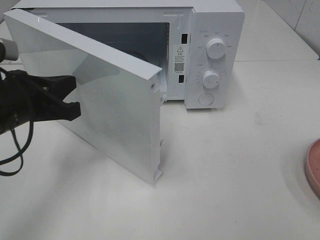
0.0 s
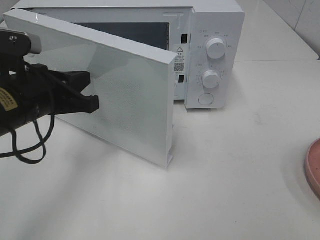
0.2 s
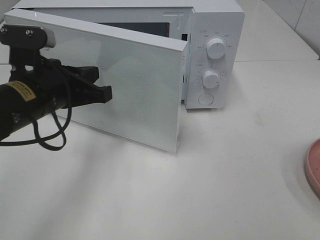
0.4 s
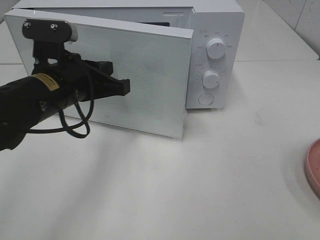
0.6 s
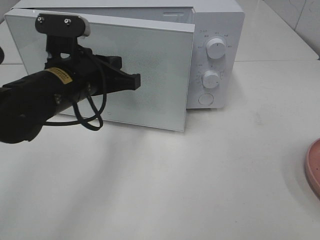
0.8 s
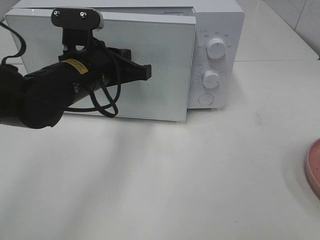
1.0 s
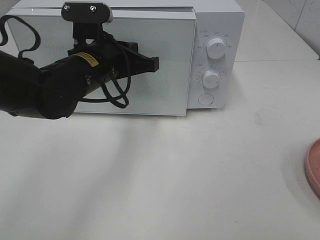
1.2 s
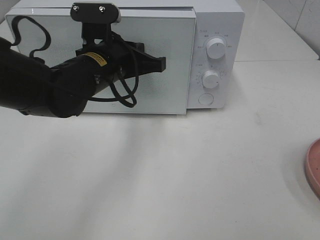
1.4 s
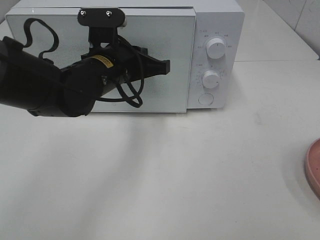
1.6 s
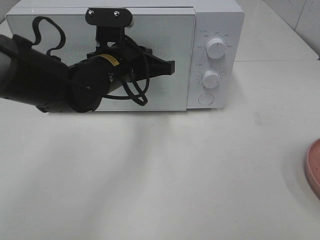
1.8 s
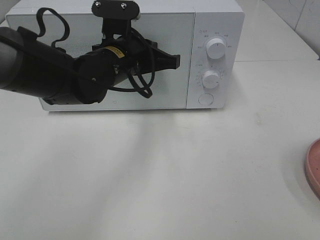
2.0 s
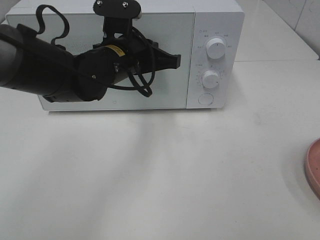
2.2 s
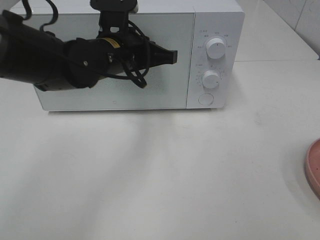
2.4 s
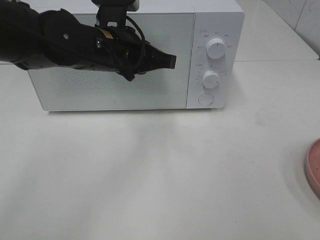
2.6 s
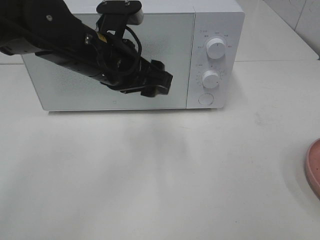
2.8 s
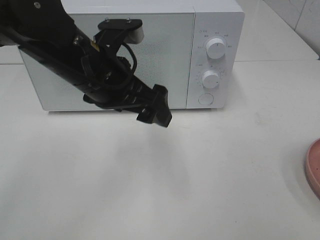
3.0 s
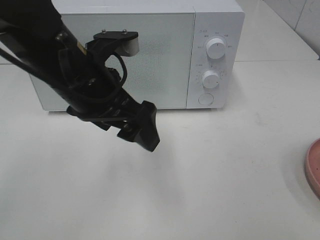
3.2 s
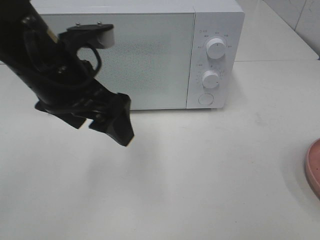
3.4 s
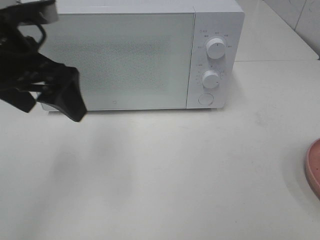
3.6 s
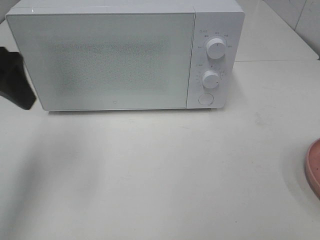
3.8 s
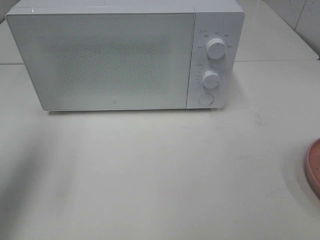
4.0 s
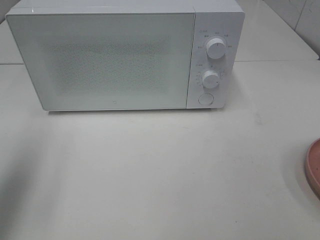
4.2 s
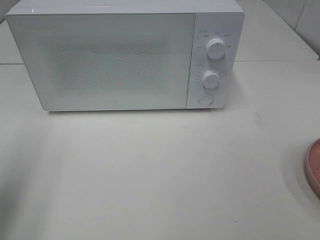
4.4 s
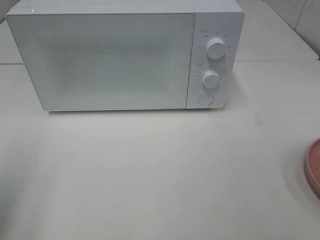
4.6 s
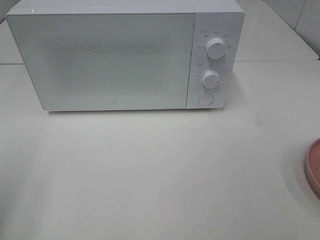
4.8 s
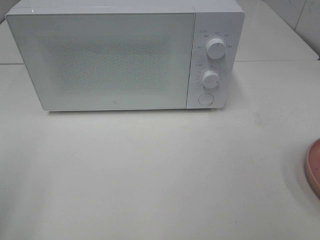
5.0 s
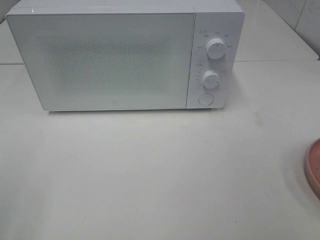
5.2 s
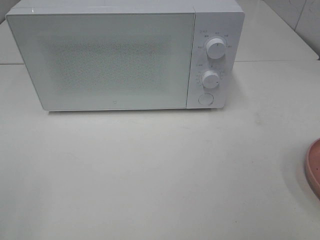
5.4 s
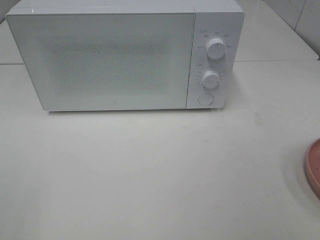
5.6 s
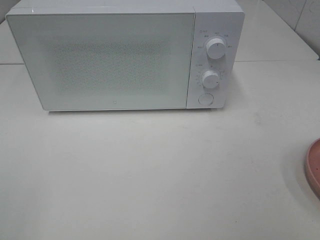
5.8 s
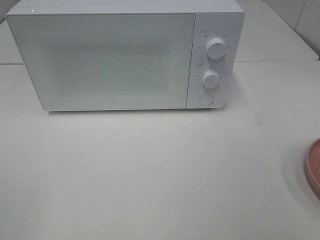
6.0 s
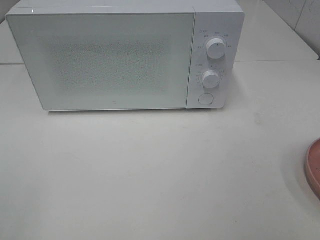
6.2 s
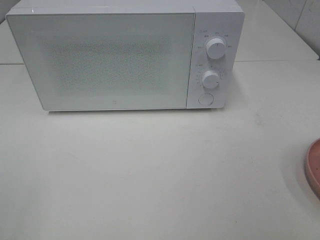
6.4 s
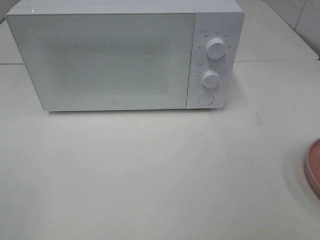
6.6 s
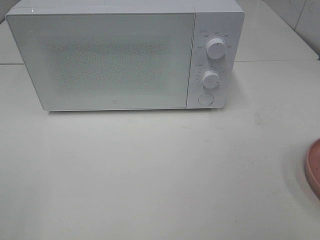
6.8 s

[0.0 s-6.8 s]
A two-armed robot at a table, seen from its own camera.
Task of the whole recording: Heat the burger.
Step, 0.0 to 2.4 s: Left hand: close the microwave door.
0.0 to 1.4 s: The left gripper travels to the right and forward by some 15 cm.
1.4 to 2.8 s: The left gripper changes place by some 5 cm, and opens up.
2.8 to 4.0 s: The left gripper shifts some 20 cm to the left.
4.0 to 5.4 s: The left gripper is displaced backward by about 20 cm.
5.4 to 6.8 s: Both grippers stay put.

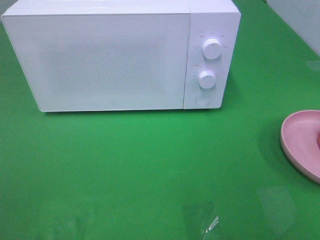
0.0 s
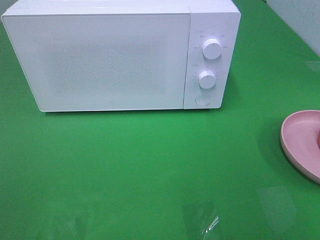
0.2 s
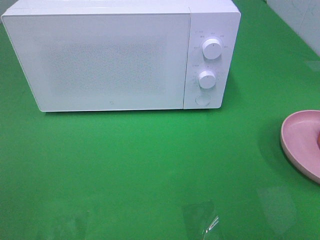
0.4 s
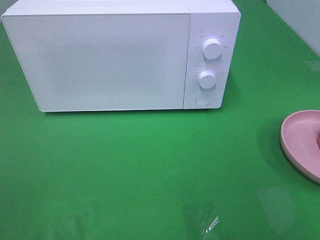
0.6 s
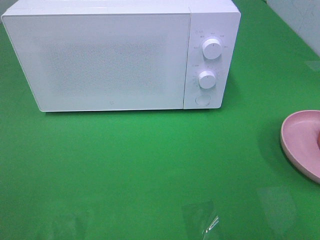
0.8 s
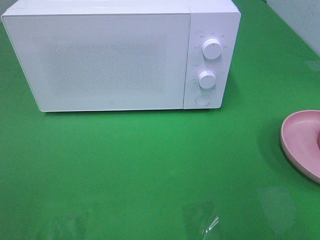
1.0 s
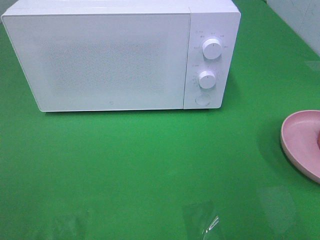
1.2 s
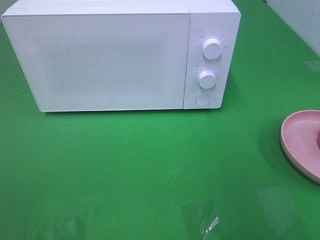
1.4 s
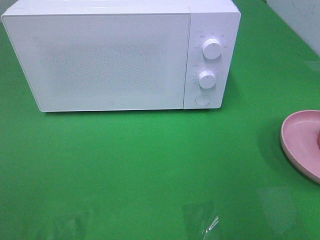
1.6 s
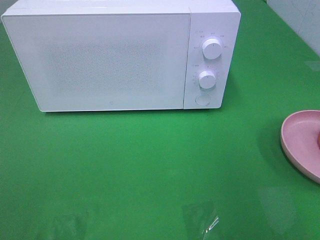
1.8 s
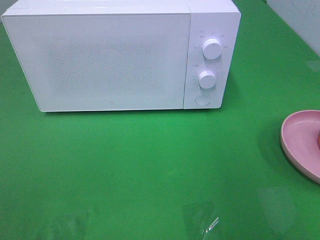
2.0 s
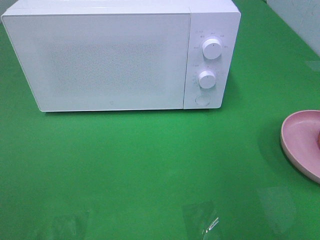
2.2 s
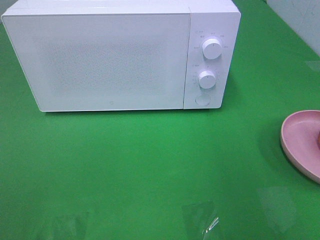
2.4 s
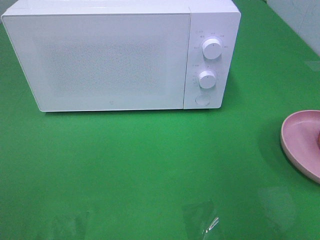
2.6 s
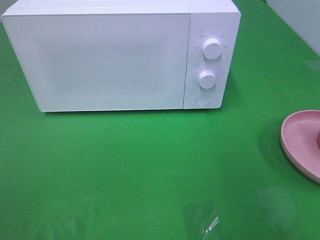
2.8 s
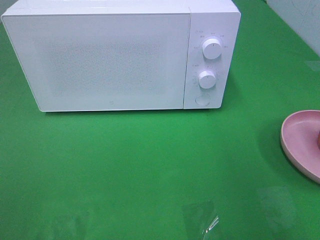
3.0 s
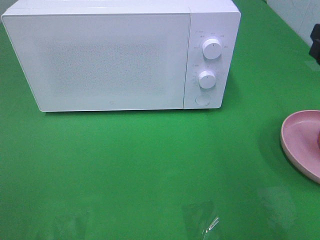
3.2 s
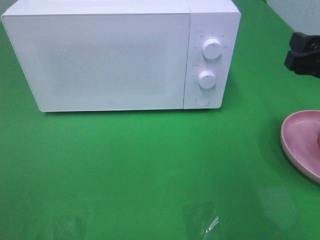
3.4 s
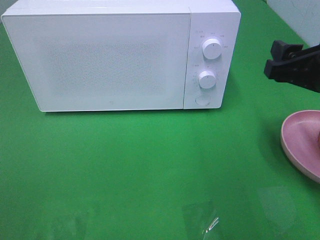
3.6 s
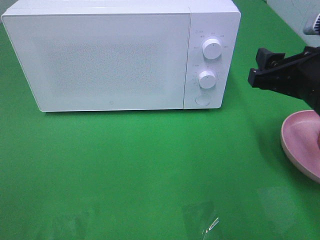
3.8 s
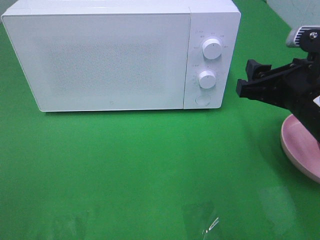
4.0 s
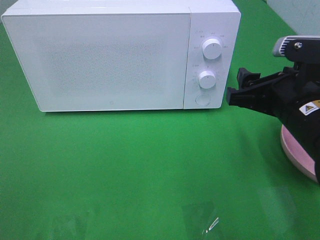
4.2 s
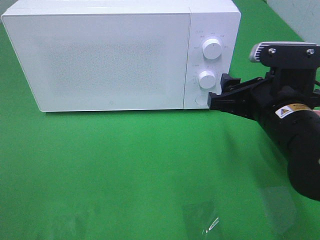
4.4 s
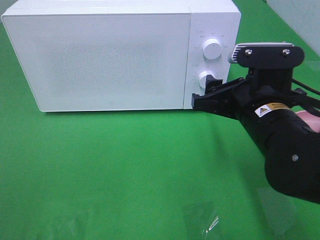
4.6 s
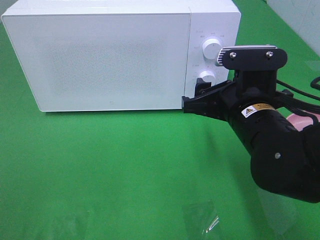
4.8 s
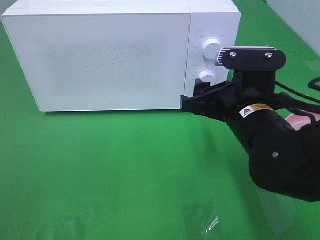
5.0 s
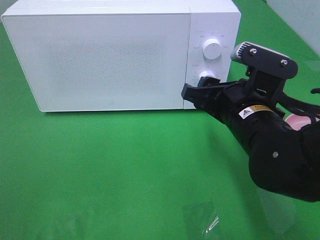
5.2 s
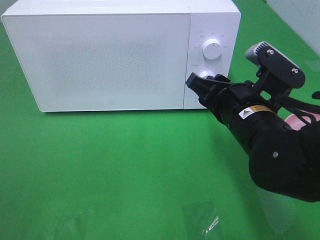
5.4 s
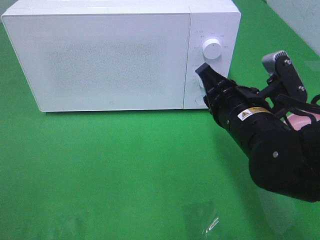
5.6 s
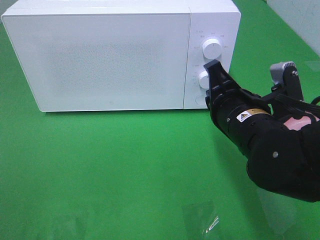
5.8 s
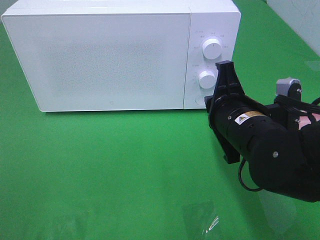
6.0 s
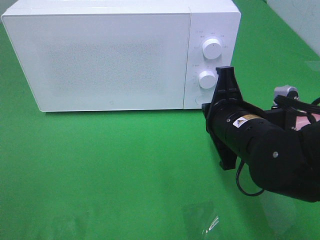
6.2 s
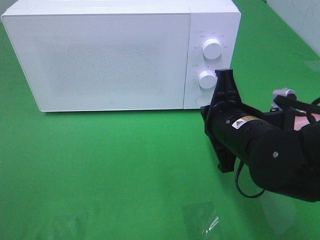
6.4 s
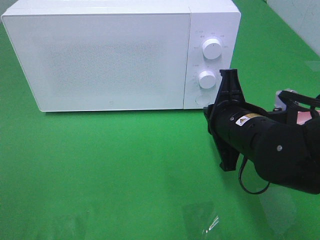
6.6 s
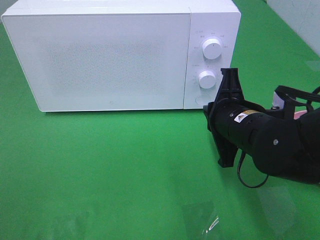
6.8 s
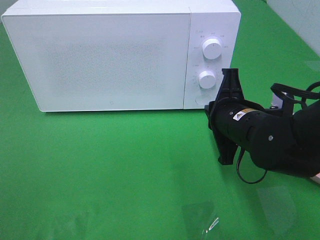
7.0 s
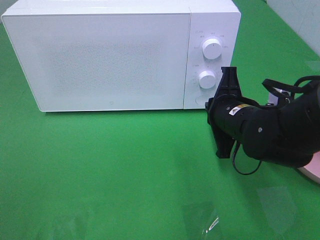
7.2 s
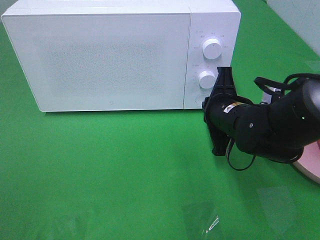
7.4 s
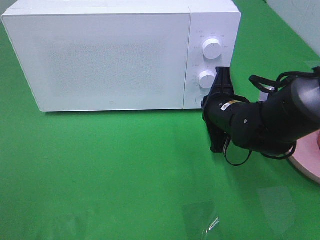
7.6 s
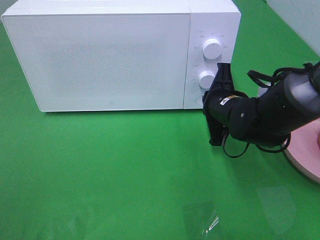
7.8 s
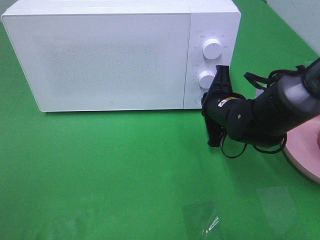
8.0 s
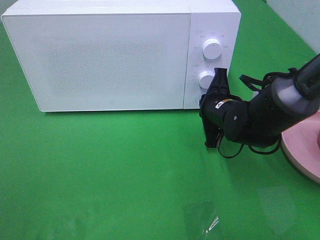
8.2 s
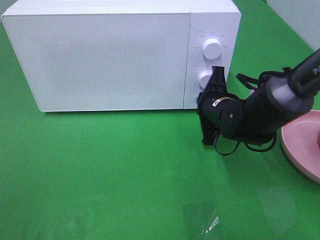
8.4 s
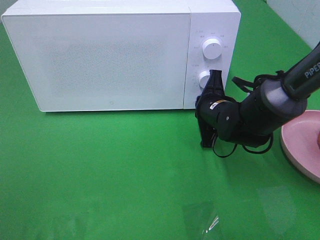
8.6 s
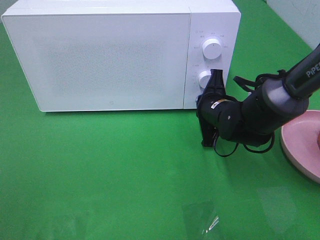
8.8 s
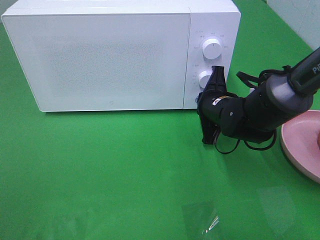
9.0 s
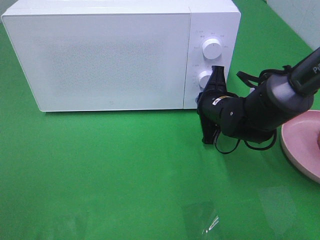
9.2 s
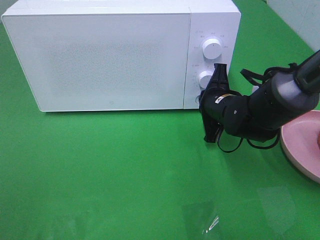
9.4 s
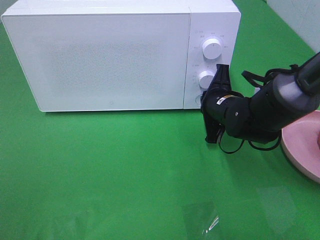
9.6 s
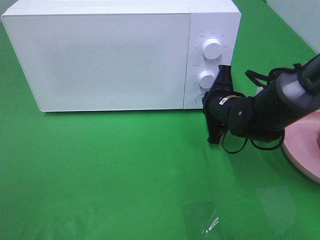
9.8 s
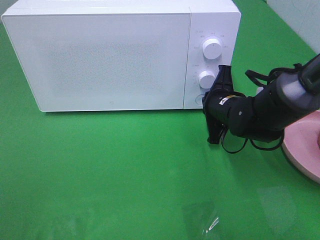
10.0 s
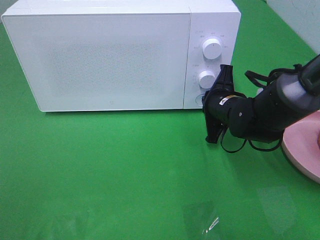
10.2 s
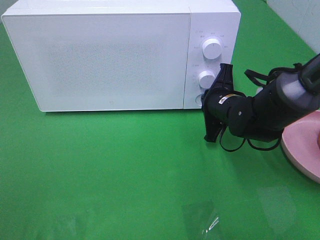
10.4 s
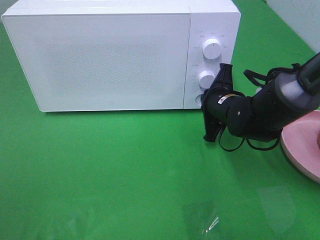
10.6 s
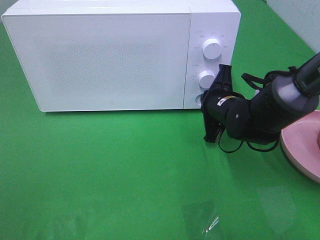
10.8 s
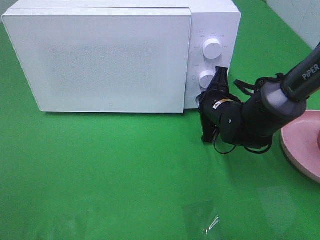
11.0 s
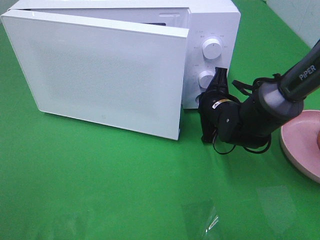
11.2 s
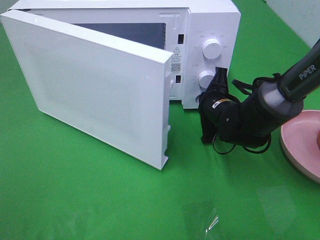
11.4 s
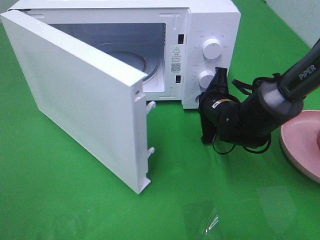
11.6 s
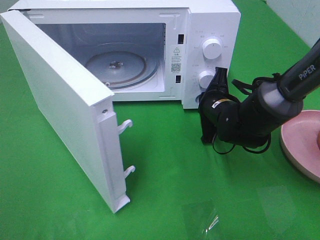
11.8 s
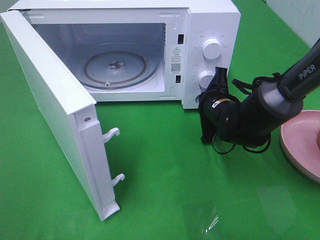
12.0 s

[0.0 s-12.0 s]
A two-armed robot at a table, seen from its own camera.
Task of the whole recording: Heat the burger.
3.0 to 4.4 s: The right gripper is displaced to the left and downward by about 15 cm.
4.4 to 6.0 s: The right gripper closes its fingers.
6.0 to 7.6 s: The right gripper moves forward, some 10 cm.
7.6 to 9.0 s: The grippers stay close to where they were, moving slightly.
9.0 to 10.4 s: Both grippers stay put.

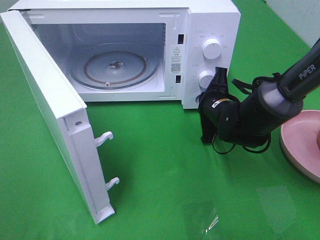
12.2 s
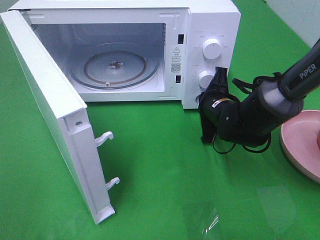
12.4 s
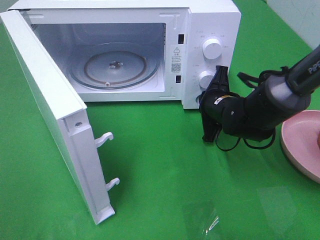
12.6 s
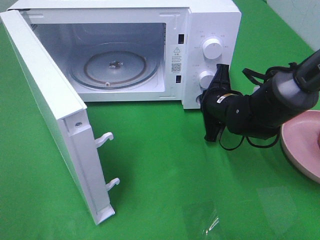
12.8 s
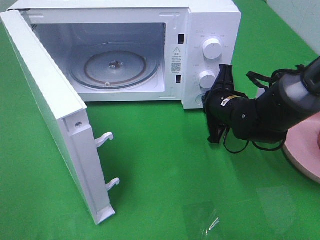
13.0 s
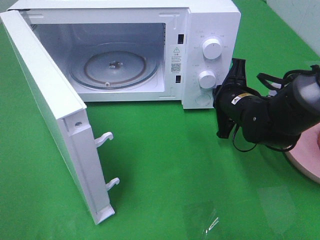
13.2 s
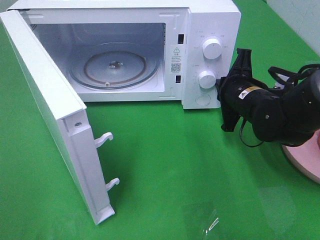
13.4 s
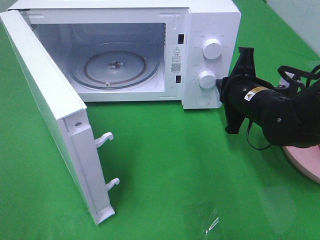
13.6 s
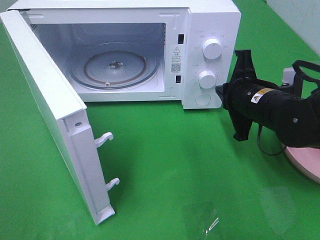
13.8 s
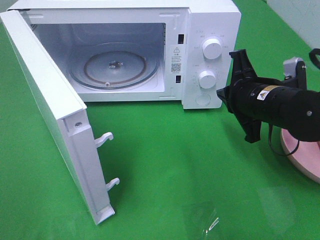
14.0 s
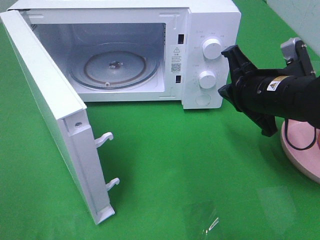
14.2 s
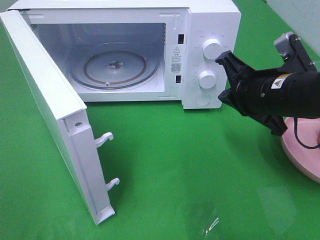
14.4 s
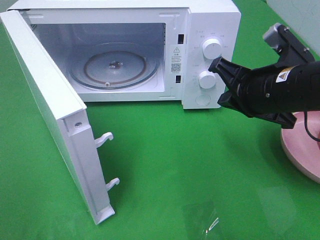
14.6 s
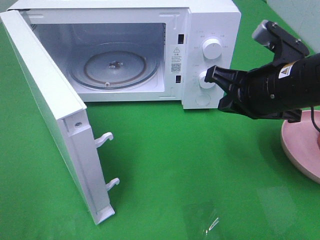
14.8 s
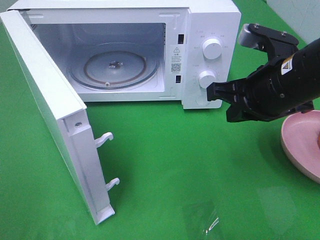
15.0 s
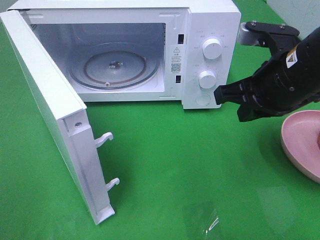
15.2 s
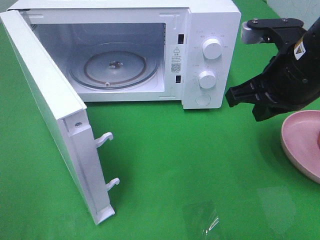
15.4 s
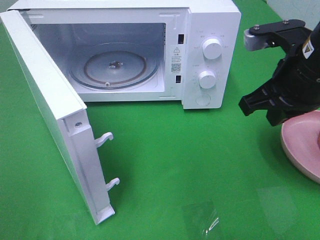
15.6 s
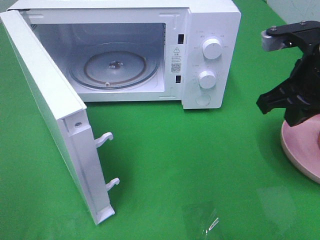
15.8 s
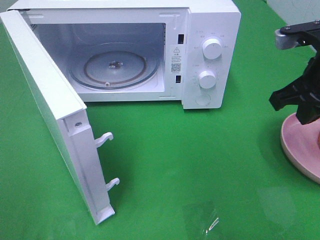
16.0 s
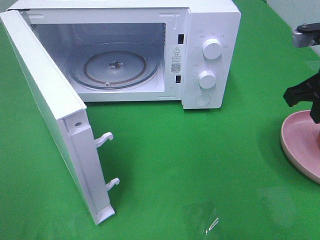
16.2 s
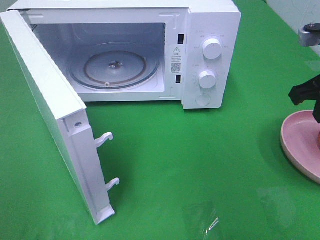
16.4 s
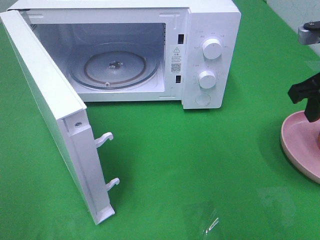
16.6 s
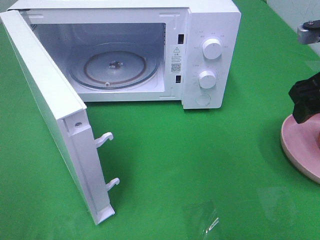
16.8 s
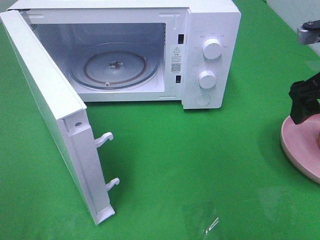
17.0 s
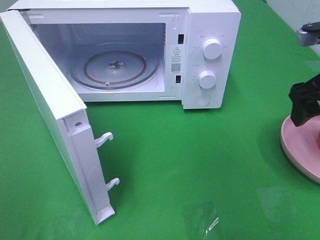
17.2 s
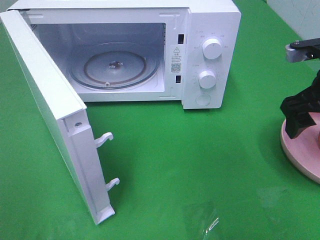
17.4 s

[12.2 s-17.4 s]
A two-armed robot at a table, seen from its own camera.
Task of the whole recording: Heat the burger.
12.2 to 14.0 s: The right gripper travels upward and backward by approximately 10 cm.
14.0 to 15.6 s: The right gripper heads upward, covering about 10 cm.
15.6 to 17.4 s: The right gripper shifts approximately 10 cm to the right, and opens up.
